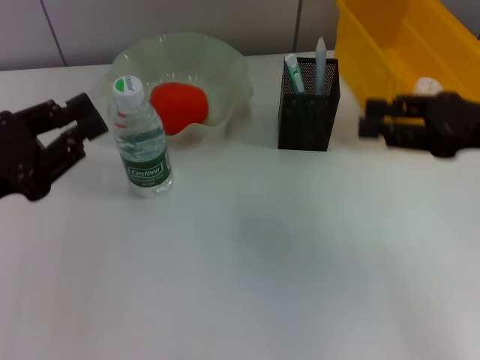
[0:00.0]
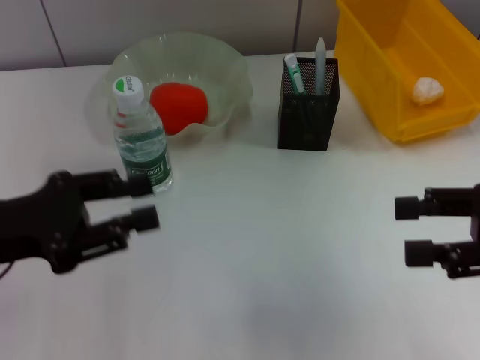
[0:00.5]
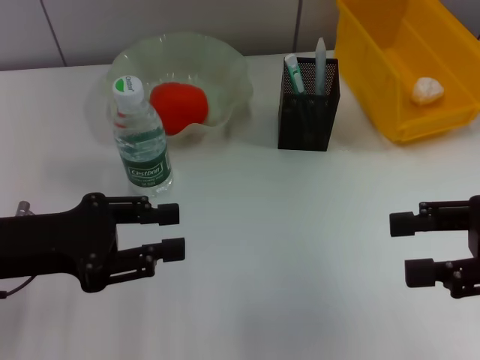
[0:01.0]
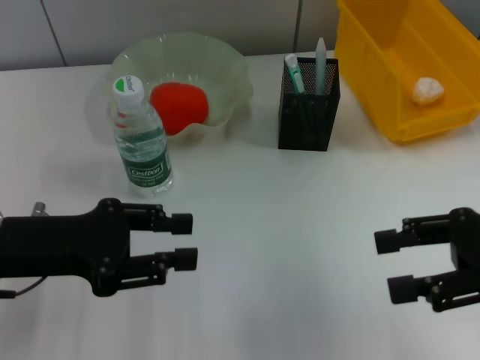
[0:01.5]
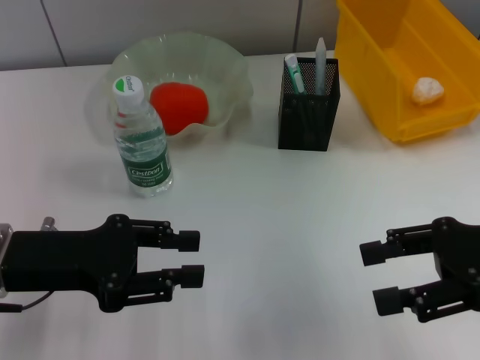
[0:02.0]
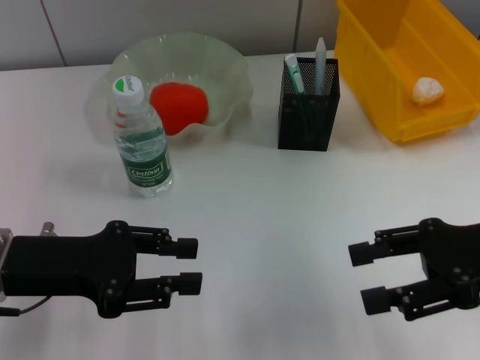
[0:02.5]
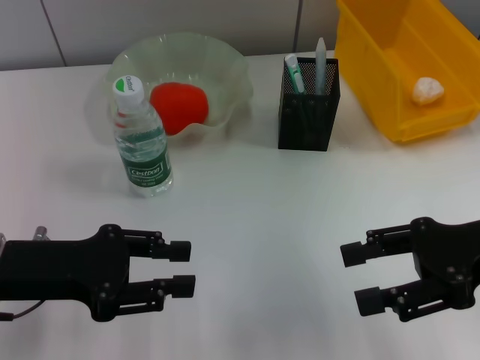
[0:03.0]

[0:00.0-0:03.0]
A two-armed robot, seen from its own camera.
0:00.0 to 0:01.5: The left gripper opens. Meanwhile the right gripper moves backward, about 5 cm, and opens its fingers.
0:01.5 to 0:03.0: The grippers make only small movements.

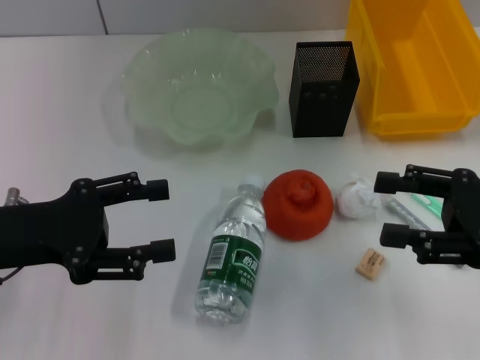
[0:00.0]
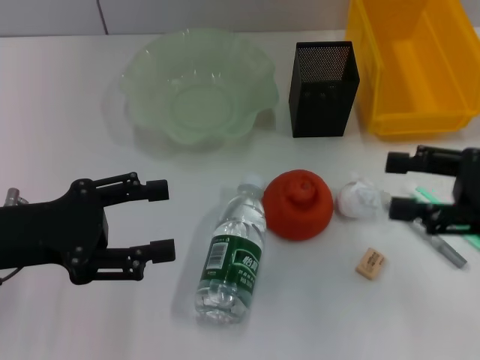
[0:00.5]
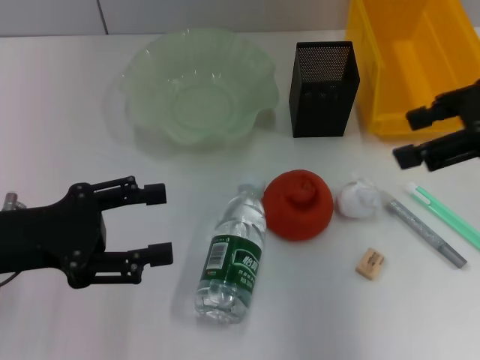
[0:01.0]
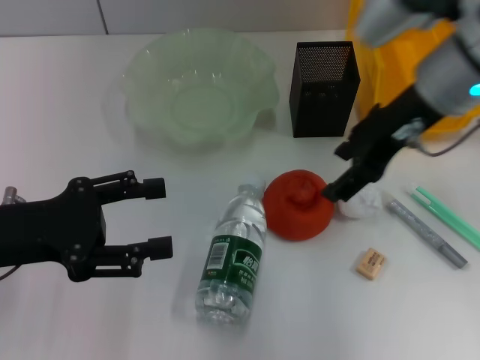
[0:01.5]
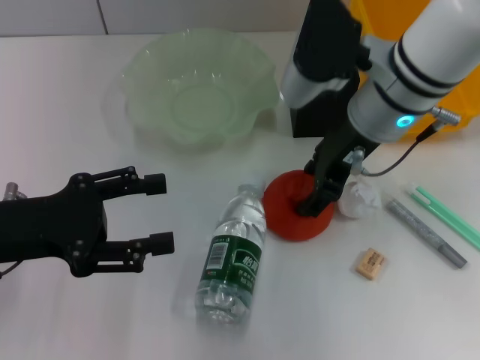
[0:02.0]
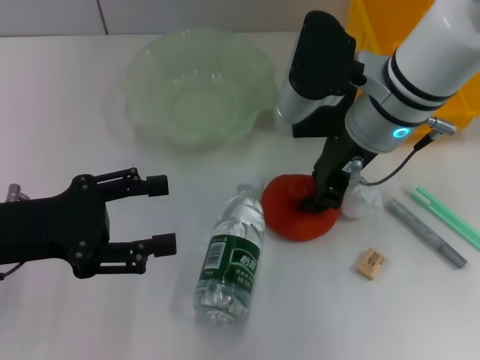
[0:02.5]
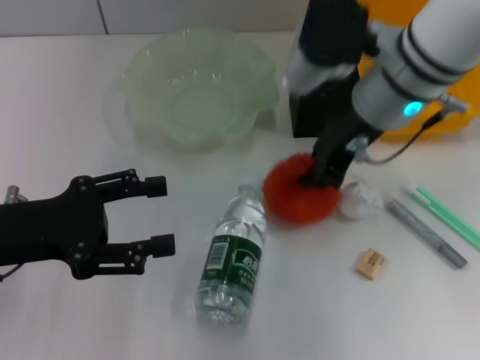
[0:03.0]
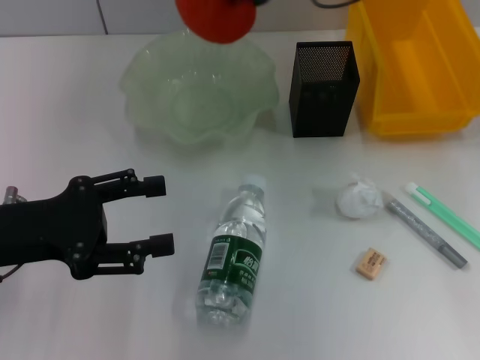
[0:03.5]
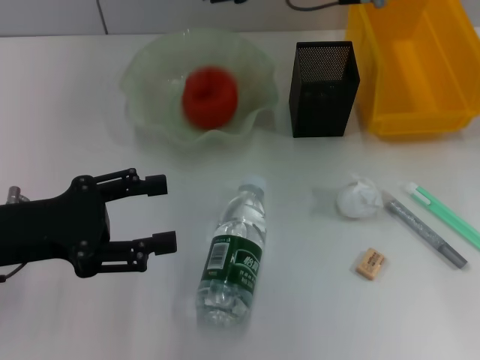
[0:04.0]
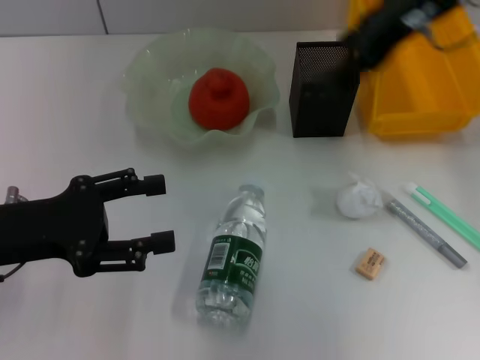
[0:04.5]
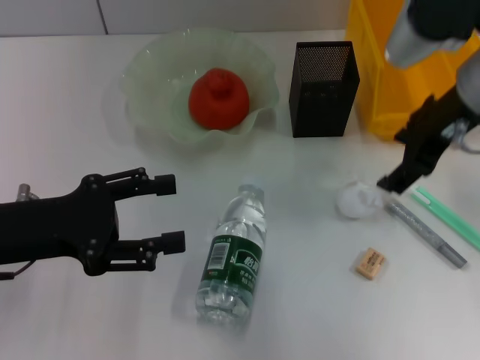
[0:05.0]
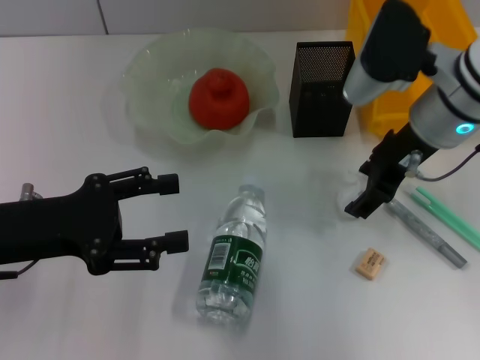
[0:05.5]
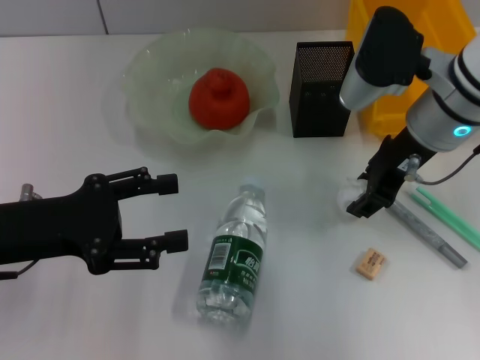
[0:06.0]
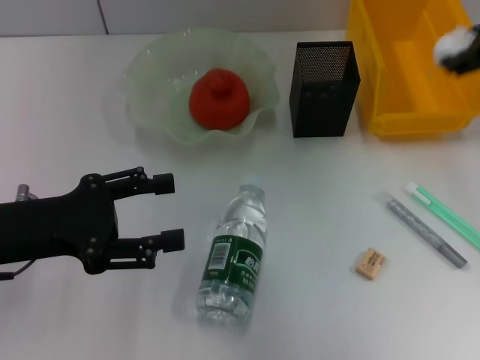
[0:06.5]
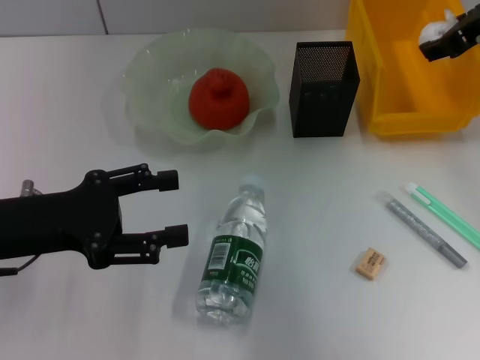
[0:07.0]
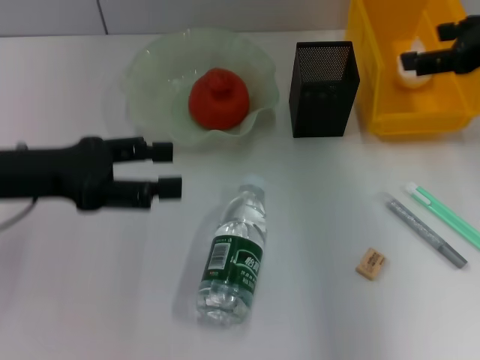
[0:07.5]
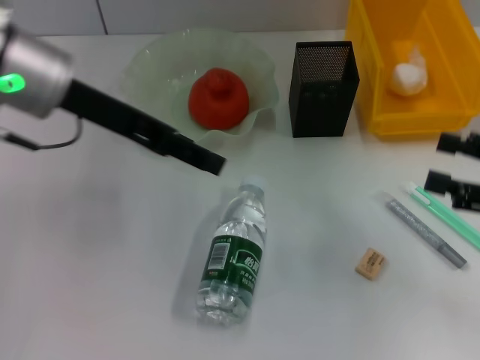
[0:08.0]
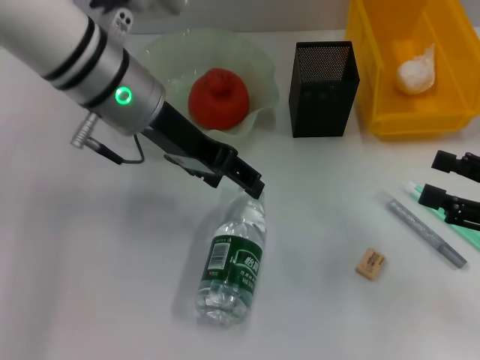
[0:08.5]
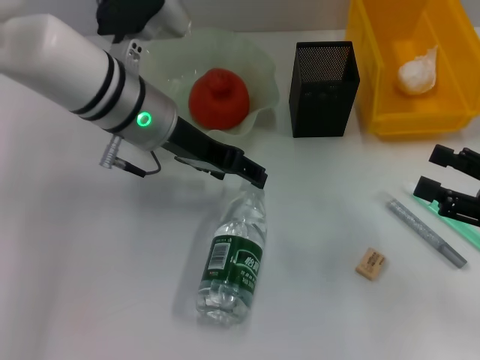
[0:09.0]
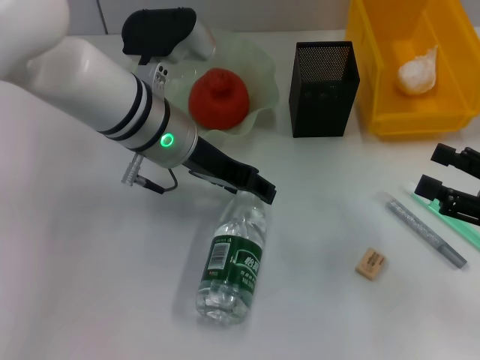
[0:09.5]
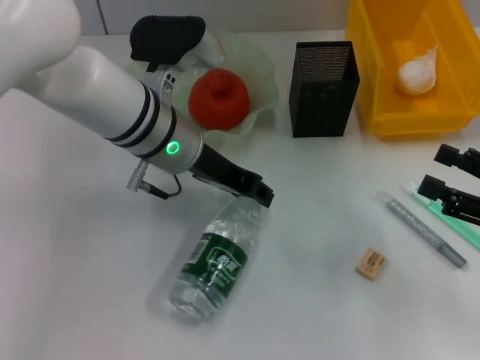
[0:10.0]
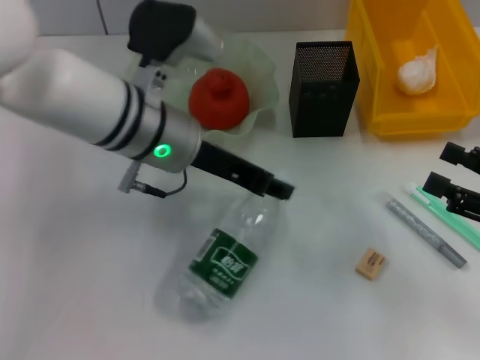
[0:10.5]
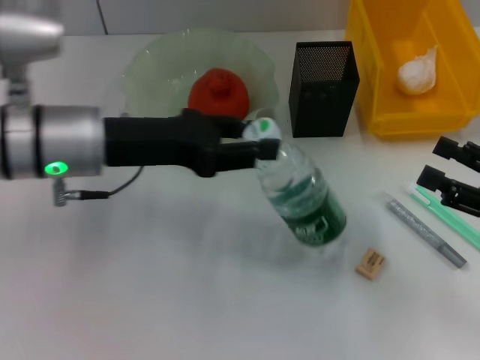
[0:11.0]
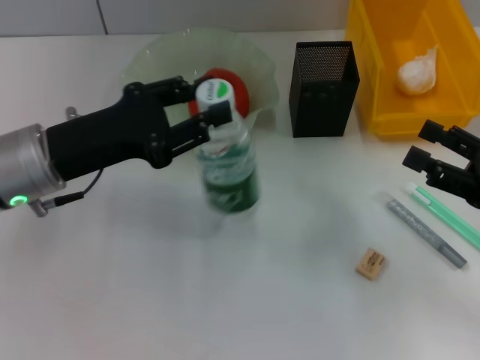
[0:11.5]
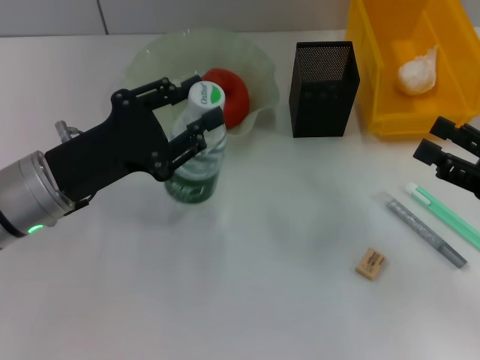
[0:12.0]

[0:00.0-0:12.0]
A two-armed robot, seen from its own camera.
Step, 0:00.0 to 0:02.5: Grab the orange with the right hand.
Step, 0:03.0 to 0:04.0: Place the orange into the fruit bowl with the right hand.
Step, 0:04.5 to 0:05.5: Grab the paper ball with the right hand.
Step, 0:06.0 to 0:07.0: Place the paper ball into the trash can with the right hand.
Step, 0:07.5 to 0:10.0: Grab the water bottle with the left hand.
0:00.0 to 0:02.0: The right gripper heads to the left and forward, covering about 20 cm.
0:02.0 to 0:04.0: The right gripper shifts some 10 cm forward and upward, and closes its fingers.
0:04.0 to 0:06.0: The right gripper goes roughly 15 cm backward, downward and to the right, and opens up.
0:06.0 to 0:08.0: The right gripper travels to the right and backward by about 20 cm, and opens, while the left gripper is displaced upward, forward and to the right by some 15 cm.
0:08.0 to 0:10.0: The left gripper travels to the right and downward by roughly 15 cm, and closes up.
0:10.0 to 0:12.0: The left gripper moves to the left and backward, about 15 cm, and closes.

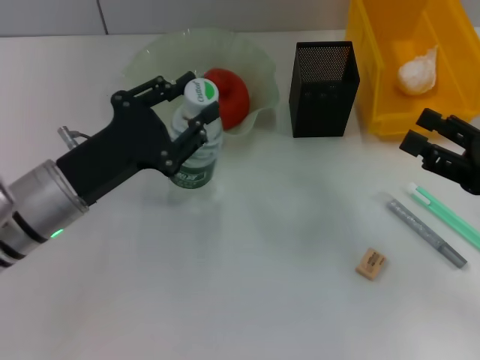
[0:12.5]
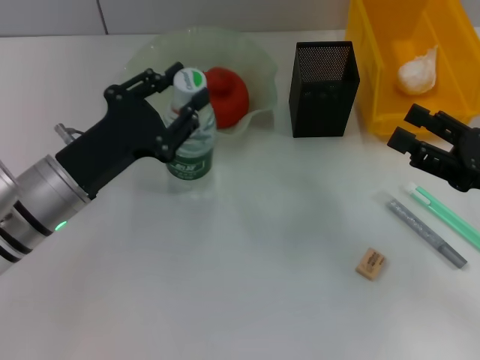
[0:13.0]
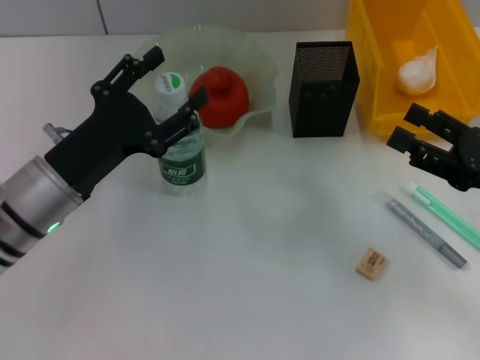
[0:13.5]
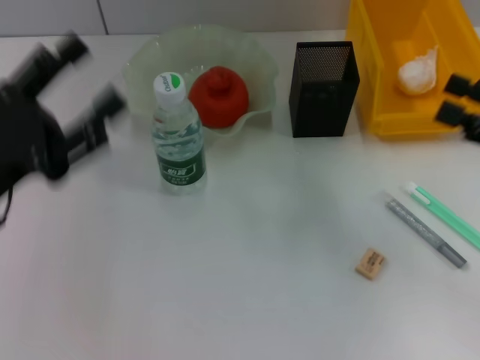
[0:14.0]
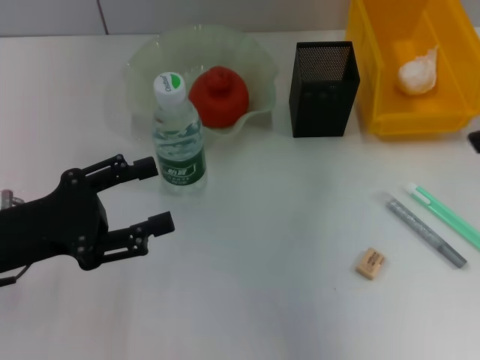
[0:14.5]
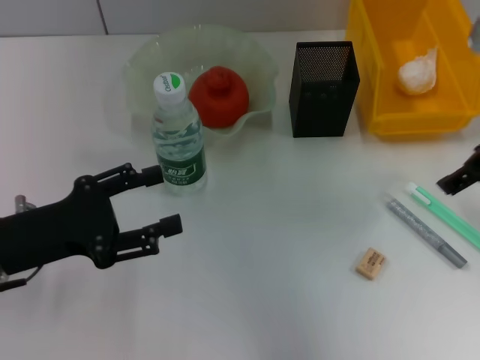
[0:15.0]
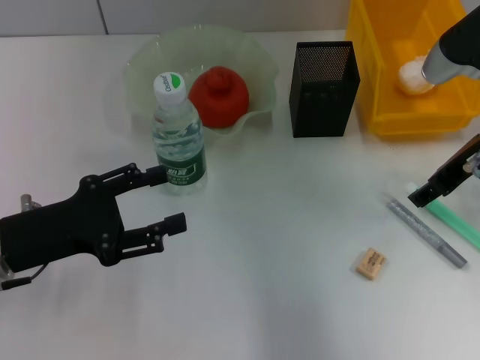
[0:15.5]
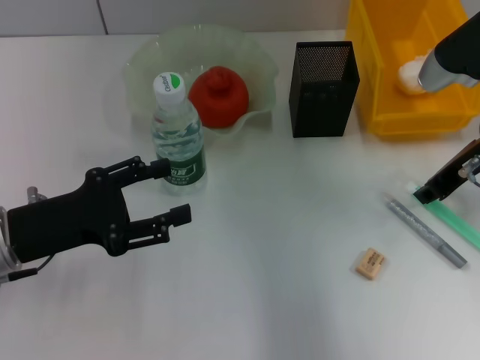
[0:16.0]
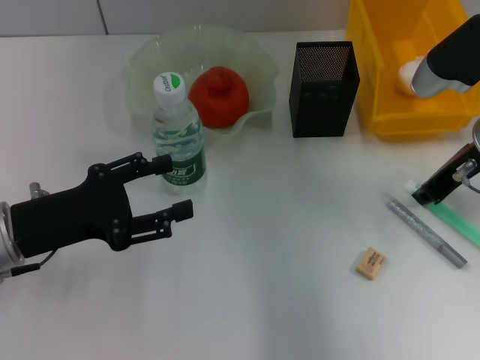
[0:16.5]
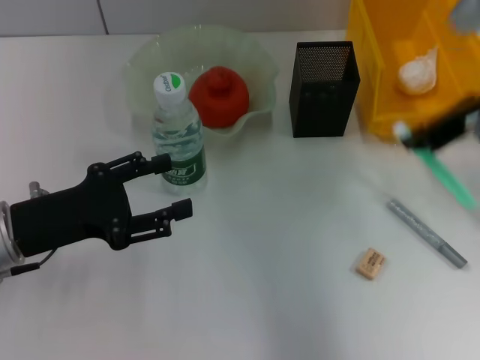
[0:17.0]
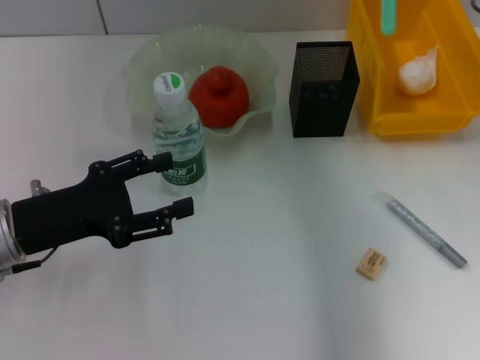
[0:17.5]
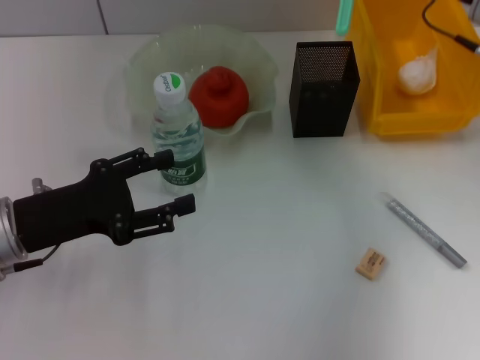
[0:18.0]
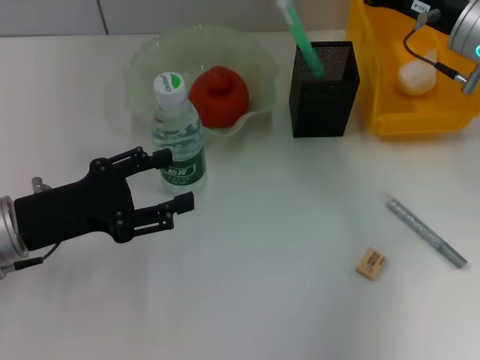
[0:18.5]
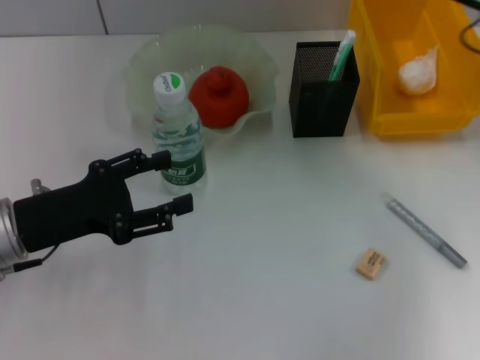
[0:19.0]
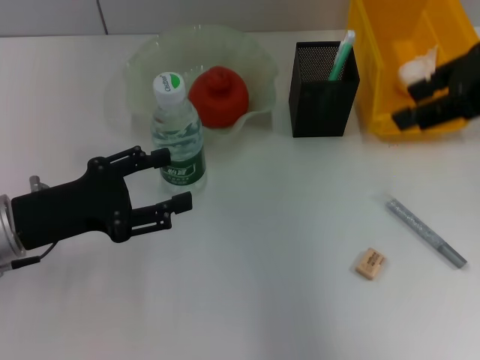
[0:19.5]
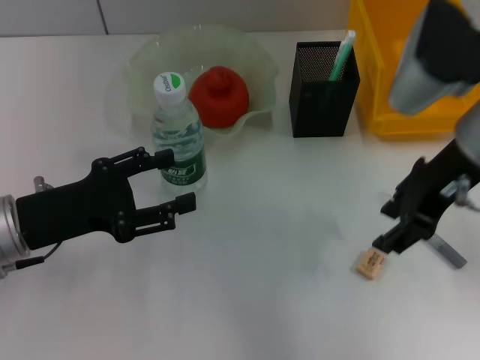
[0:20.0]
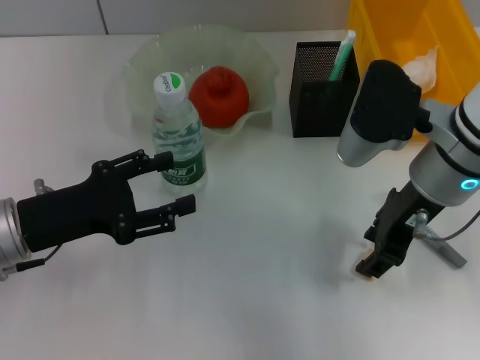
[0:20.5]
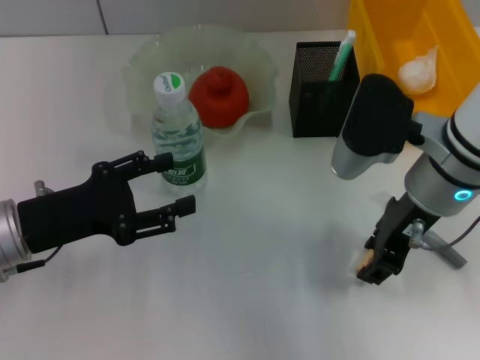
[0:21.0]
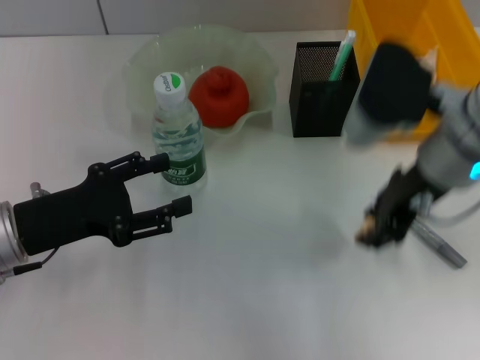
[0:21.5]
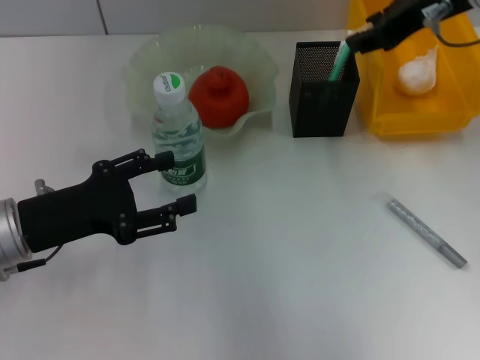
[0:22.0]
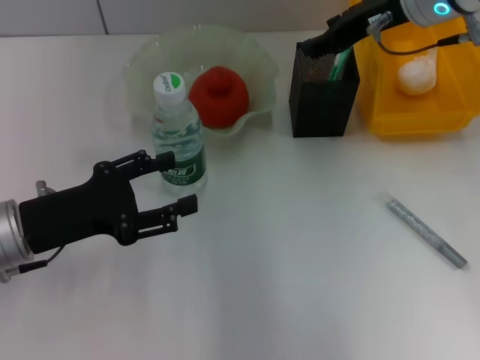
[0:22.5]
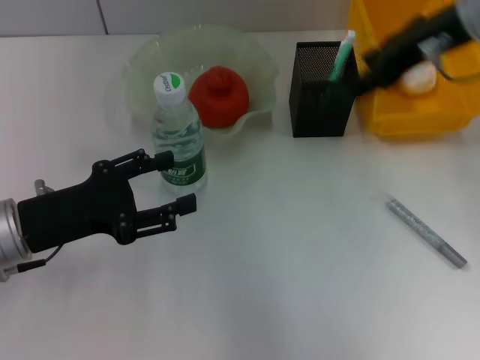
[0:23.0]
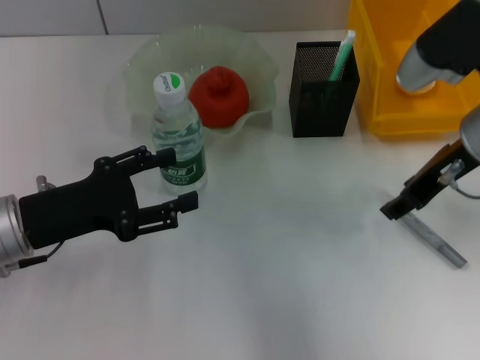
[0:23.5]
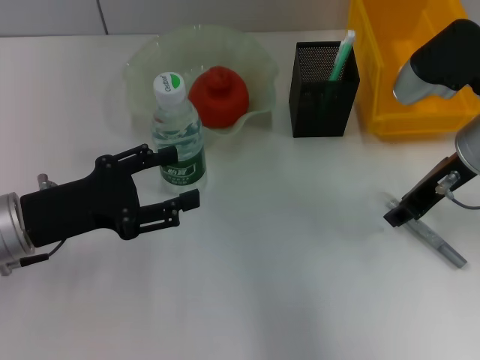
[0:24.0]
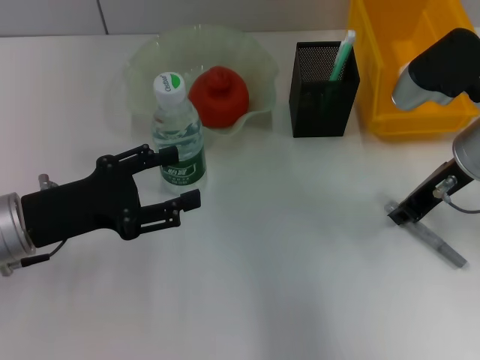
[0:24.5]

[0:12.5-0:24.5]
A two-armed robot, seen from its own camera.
Step, 0:13.5 to 0:16.5: Grab the blue utility knife with the right hand.
Step, 0:17.0 to 0:18.5: Place the blue utility knife into the pen holder with the right hand.
Step, 0:19.0 to 0:21.0: Grab the eraser with the right hand.
Step, 0:21.5 to 0:22.5: Put the eraser into the pen holder with the right hand.
0:12.5 to 0:14.5: The right gripper travels upward by about 20 cm. The left gripper goes about 5 cm to the left, and opens up.
0:14.5 to 0:16.5: The right gripper is displaced downward and forward by about 20 cm, and closes its fingers.
0:16.5 to 0:18.5: The right gripper reaches roughly 10 cm upward, then returns.
0:18.5 to 0:20.5: The right gripper is displaced backward and to the left by some 10 cm, moves approximately 15 cm upward and comes back, and opens its fingers.
0:20.5 to 0:22.5: The right gripper shifts some 15 cm forward and upward.
0:22.5 to 0:24.5: The right gripper goes roughly 10 cm downward and backward.
